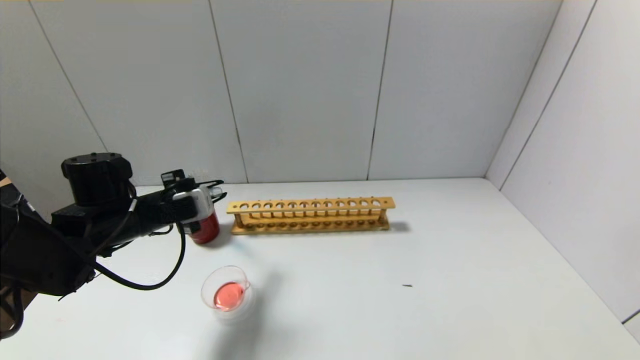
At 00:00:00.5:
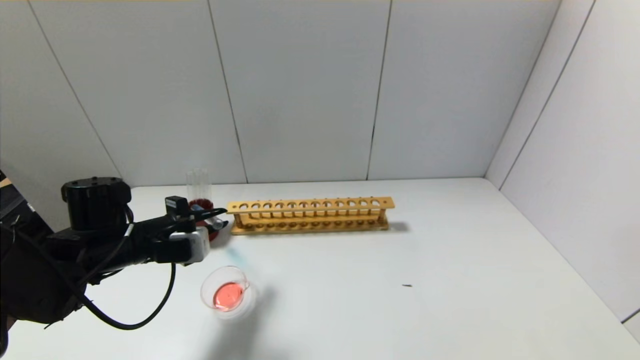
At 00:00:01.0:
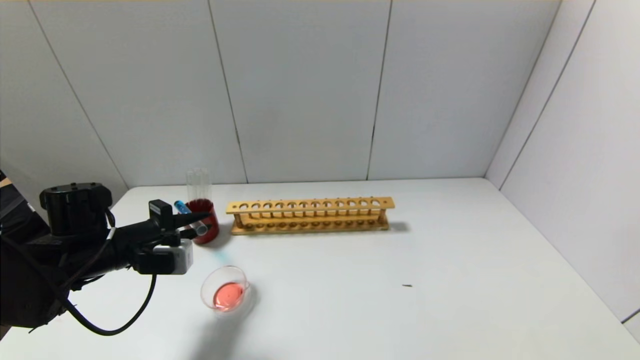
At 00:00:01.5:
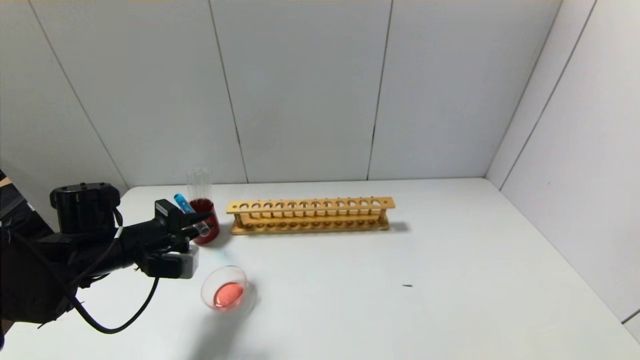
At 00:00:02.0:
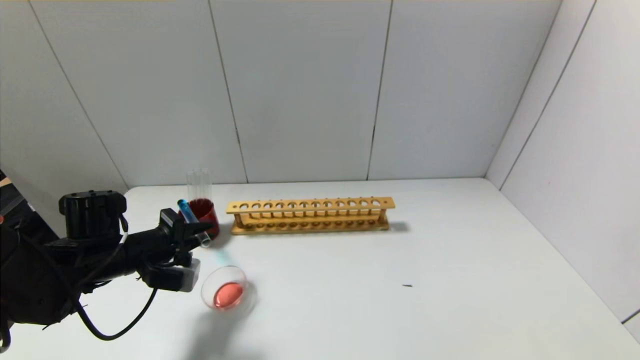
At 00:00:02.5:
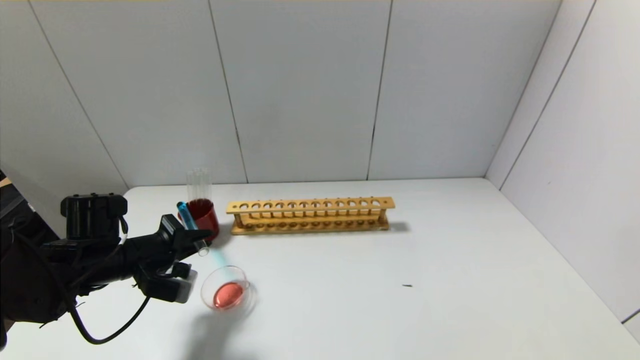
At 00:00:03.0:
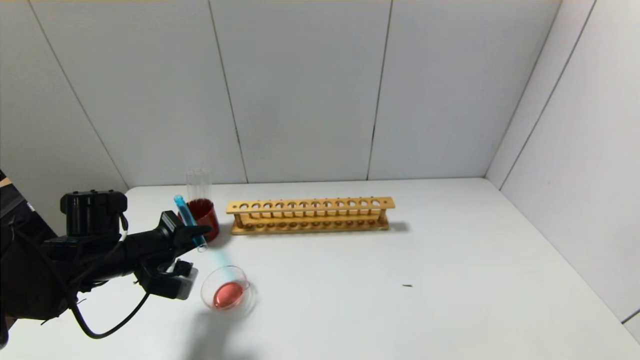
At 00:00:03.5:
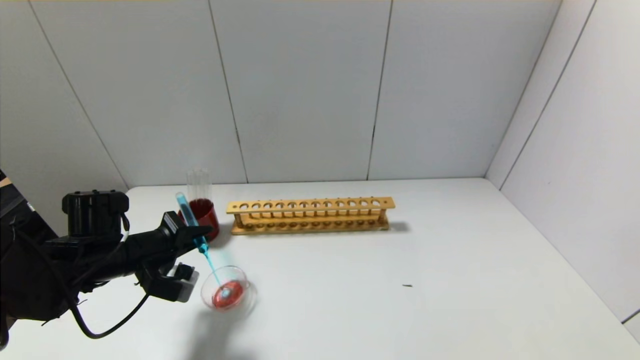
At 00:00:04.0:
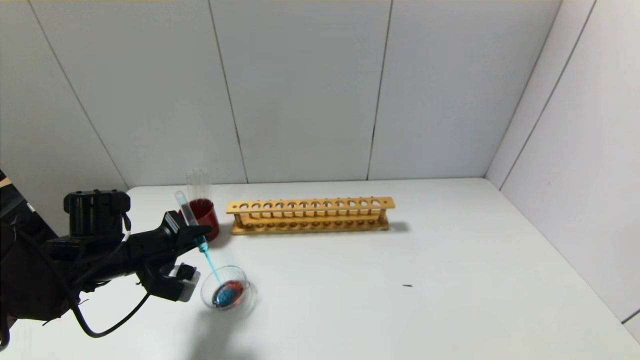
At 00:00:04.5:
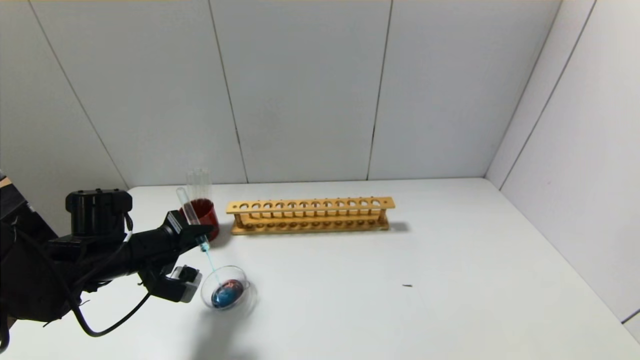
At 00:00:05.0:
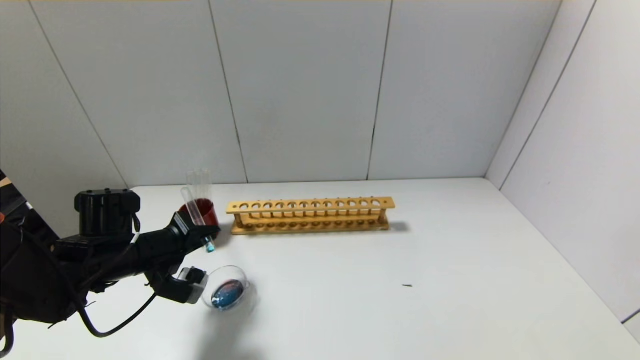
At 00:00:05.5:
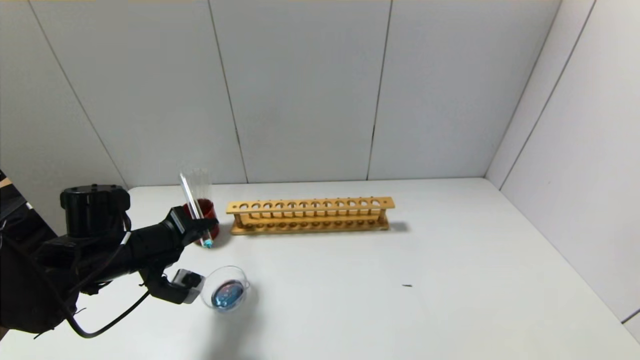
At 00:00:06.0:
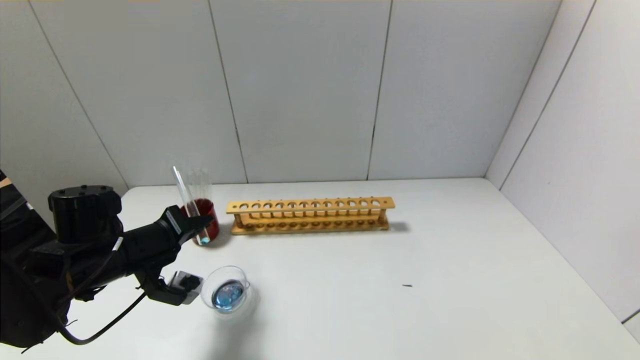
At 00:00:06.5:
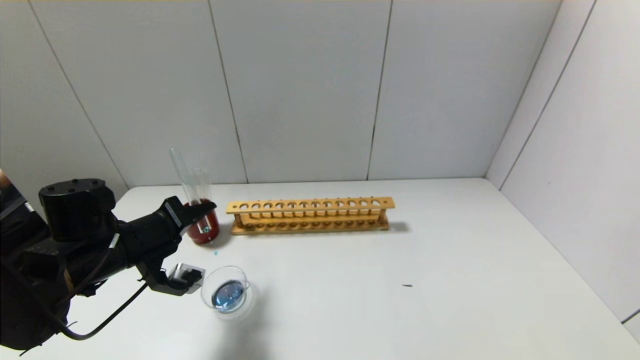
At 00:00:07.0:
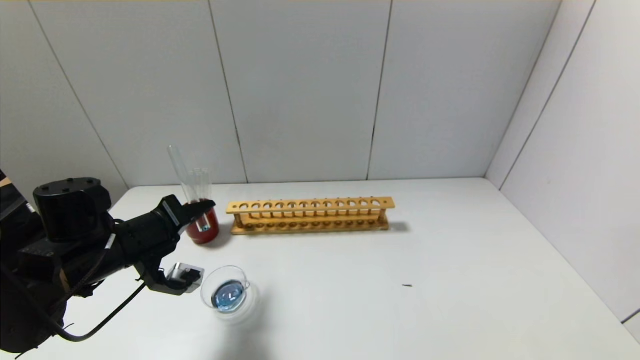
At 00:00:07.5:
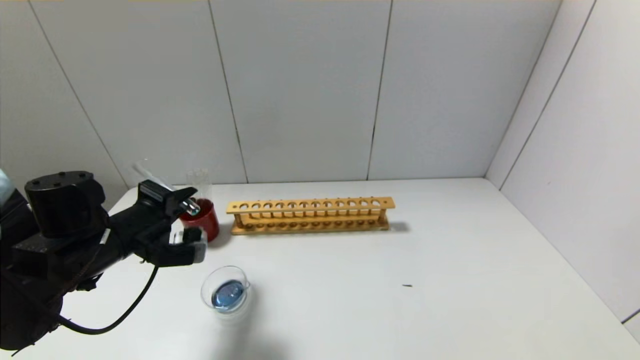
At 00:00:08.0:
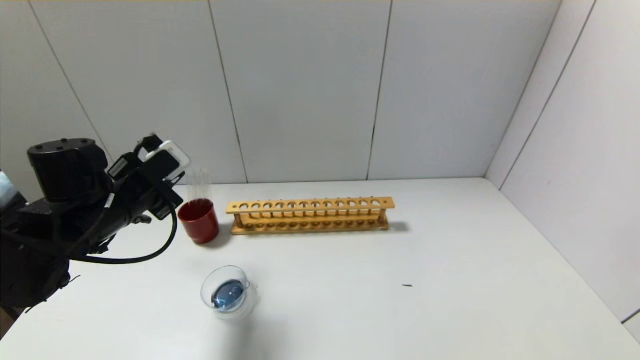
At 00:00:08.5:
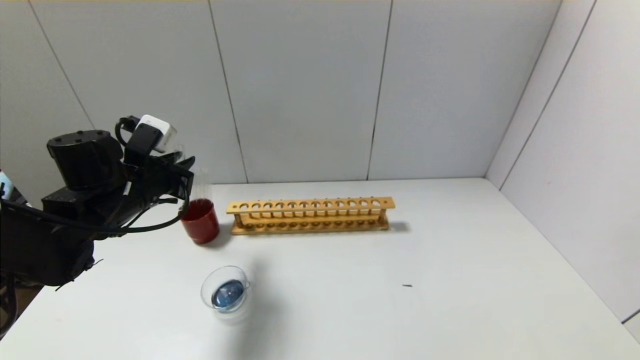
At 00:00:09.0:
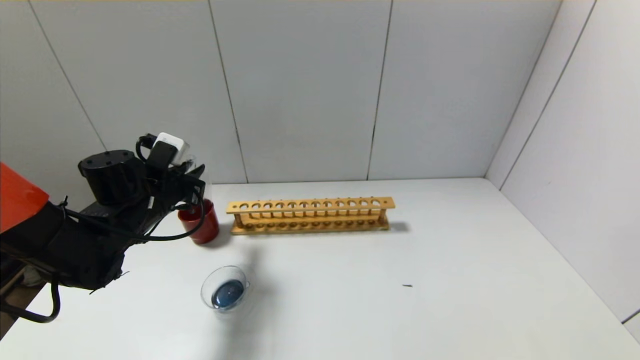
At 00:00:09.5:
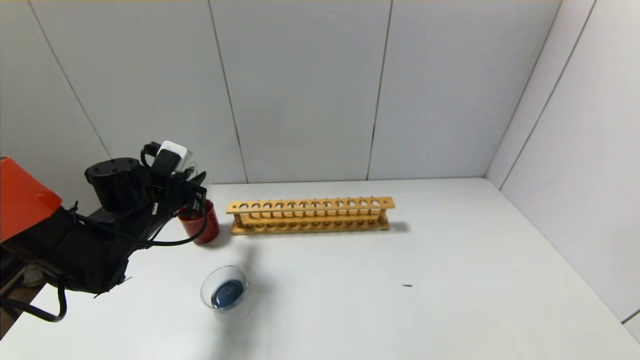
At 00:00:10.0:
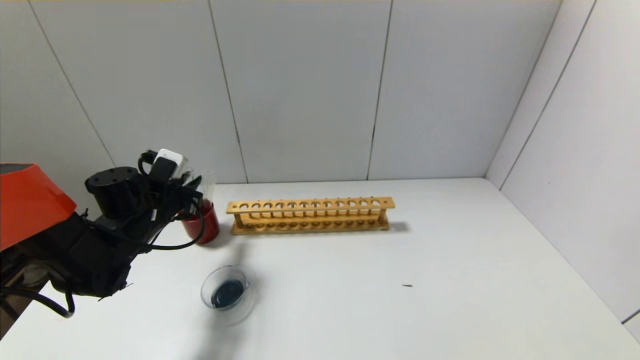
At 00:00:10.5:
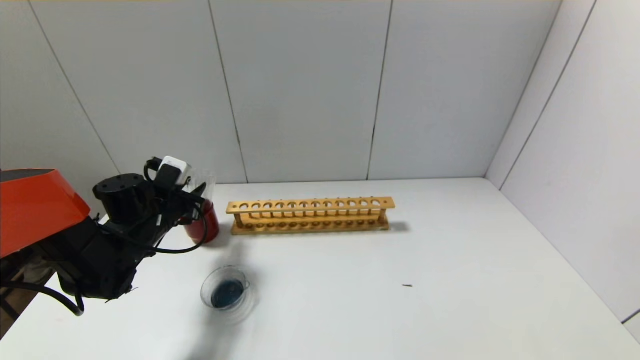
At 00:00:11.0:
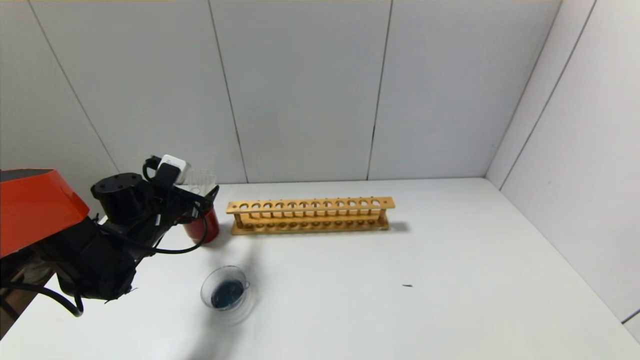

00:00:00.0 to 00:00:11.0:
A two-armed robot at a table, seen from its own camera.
Step, 00:00:00.0 to 00:00:07.0: Pour the blue reagent into the graduated cylinder with the left gripper.
Step, 00:00:07.5 to 00:00:10.5: Place the test tube into the brown cup with the left gripper.
00:00:00.0 to 00:00:02.0: The left gripper changes place by some 5 cm.
00:00:02.0 to 00:00:03.5: The grippers stay close to where they were, moving slightly.
00:00:03.5 to 00:00:05.5: The grippers stay close to where they were, moving slightly.
00:00:07.5 to 00:00:09.0: The left gripper heads forward, covering approximately 10 cm.
00:00:09.0 to 00:00:11.0: The left gripper opens.

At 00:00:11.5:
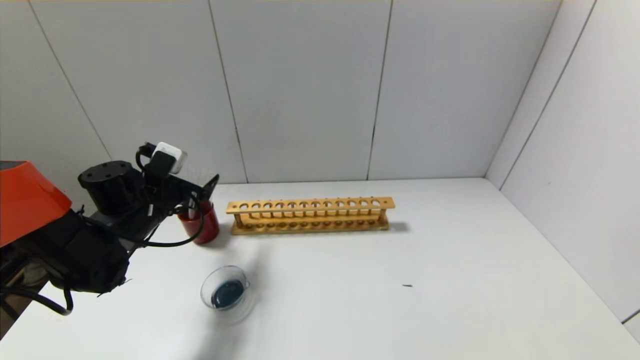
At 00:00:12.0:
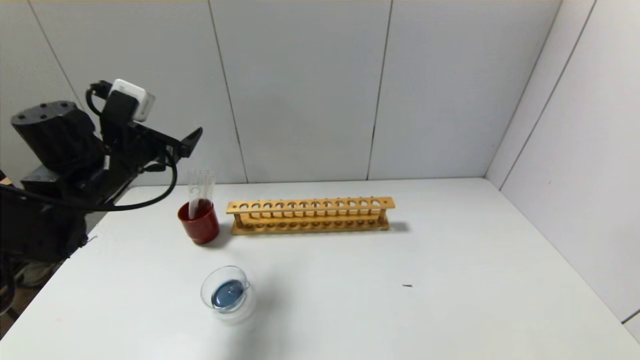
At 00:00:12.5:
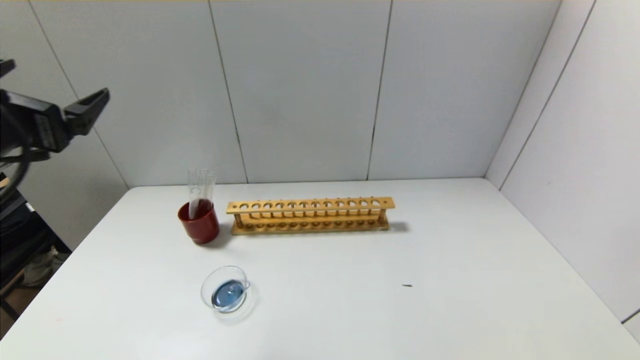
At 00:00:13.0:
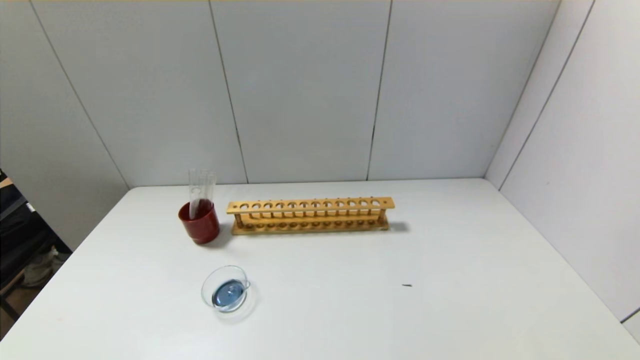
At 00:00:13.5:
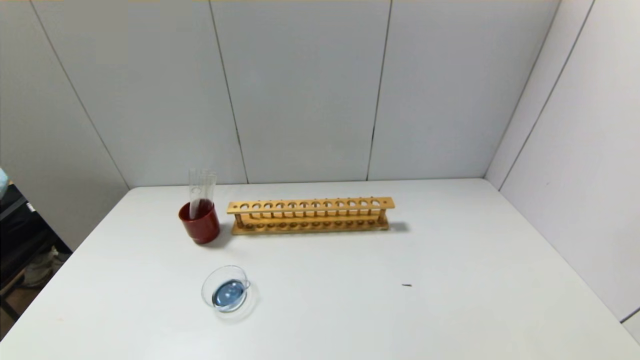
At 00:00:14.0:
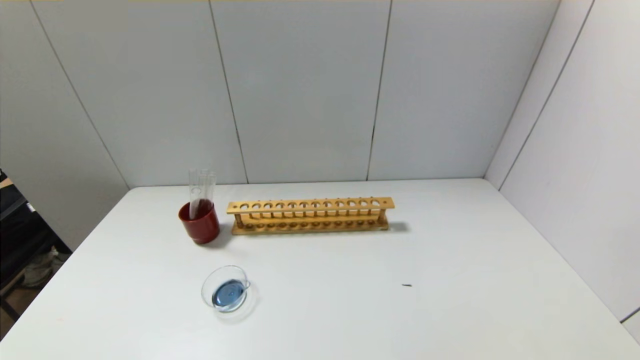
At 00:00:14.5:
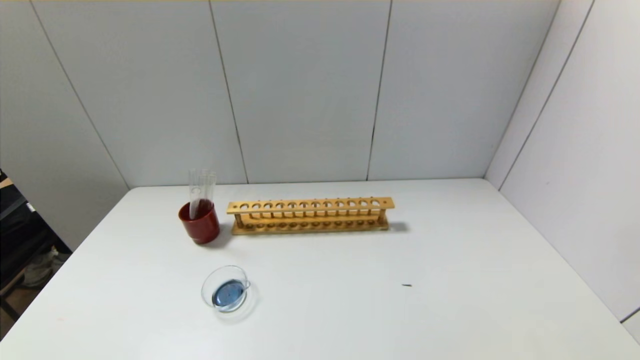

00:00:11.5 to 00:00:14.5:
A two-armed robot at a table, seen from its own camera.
00:00:11.5 to 00:00:13.0: The left gripper goes some 35 cm backward.
